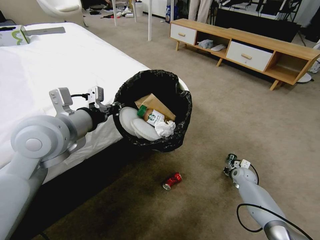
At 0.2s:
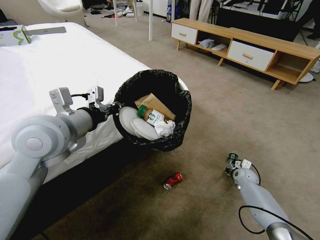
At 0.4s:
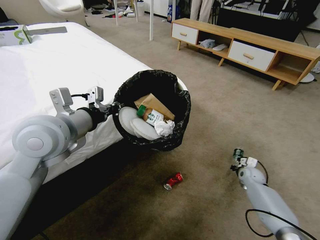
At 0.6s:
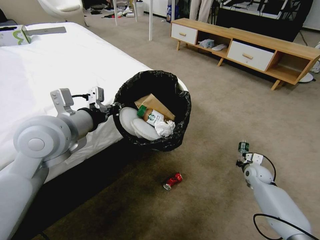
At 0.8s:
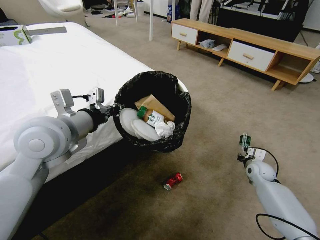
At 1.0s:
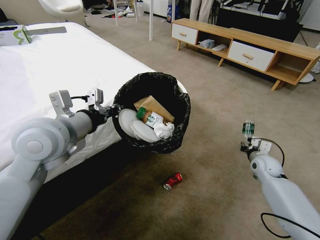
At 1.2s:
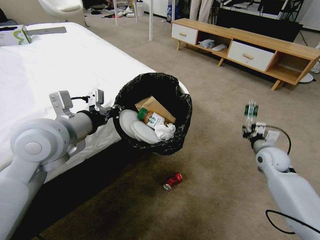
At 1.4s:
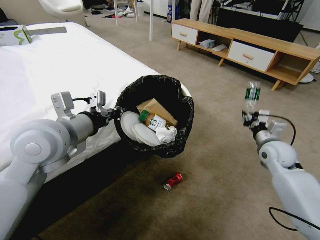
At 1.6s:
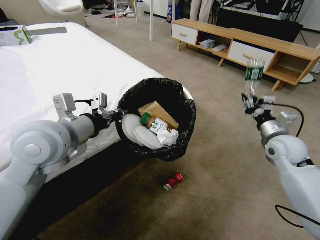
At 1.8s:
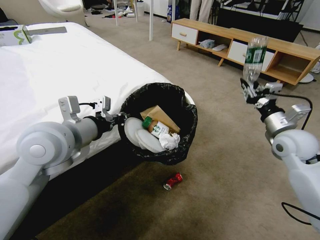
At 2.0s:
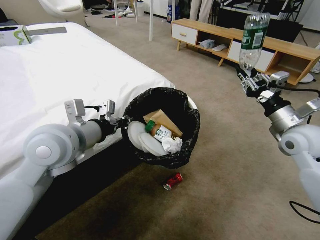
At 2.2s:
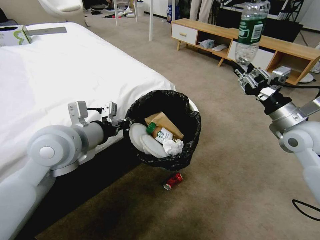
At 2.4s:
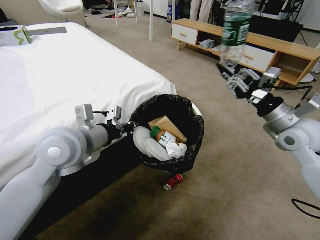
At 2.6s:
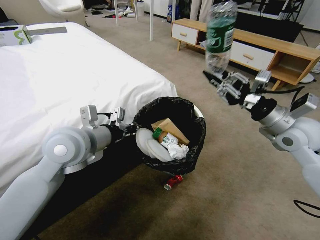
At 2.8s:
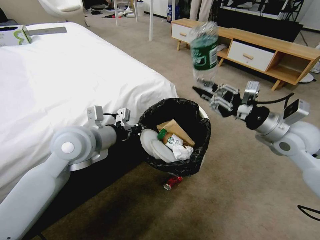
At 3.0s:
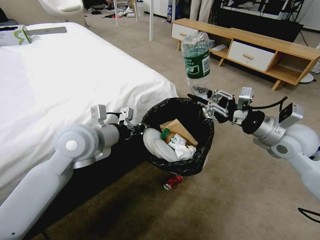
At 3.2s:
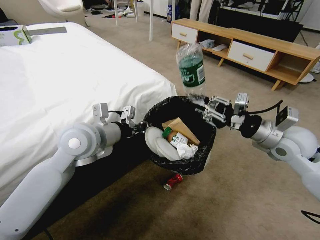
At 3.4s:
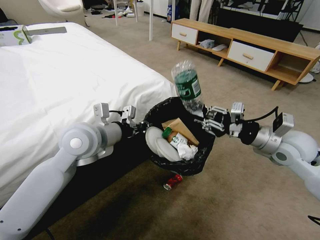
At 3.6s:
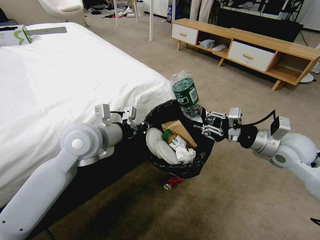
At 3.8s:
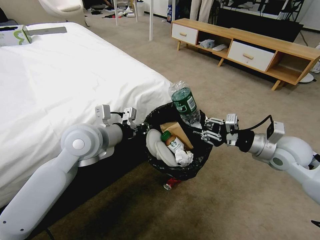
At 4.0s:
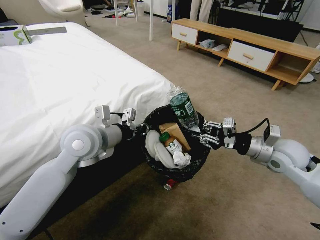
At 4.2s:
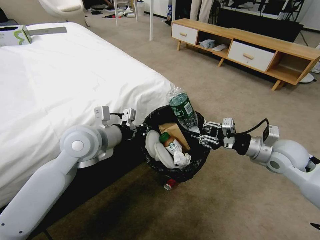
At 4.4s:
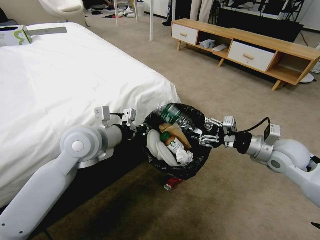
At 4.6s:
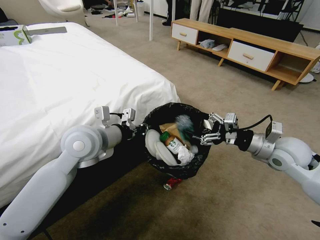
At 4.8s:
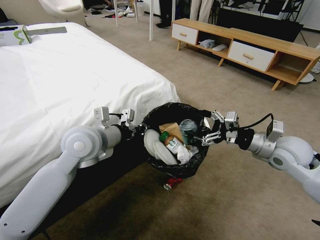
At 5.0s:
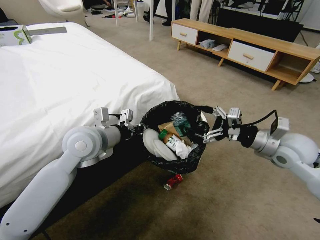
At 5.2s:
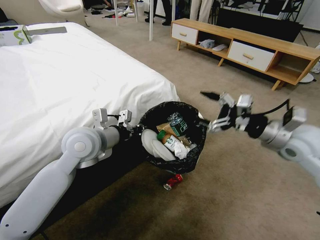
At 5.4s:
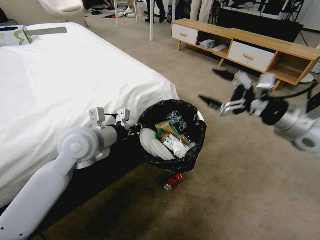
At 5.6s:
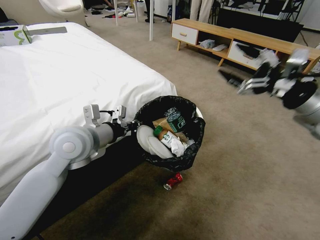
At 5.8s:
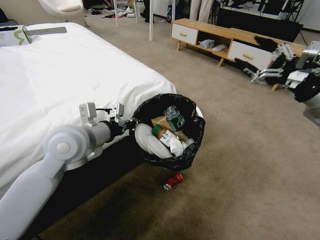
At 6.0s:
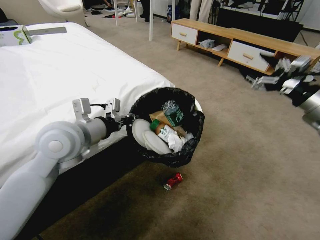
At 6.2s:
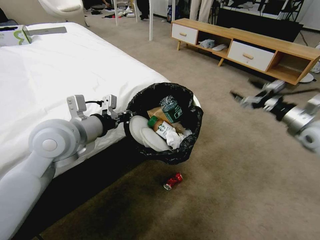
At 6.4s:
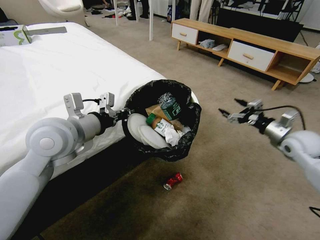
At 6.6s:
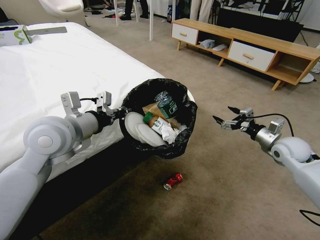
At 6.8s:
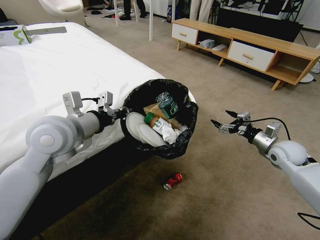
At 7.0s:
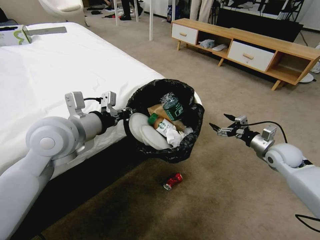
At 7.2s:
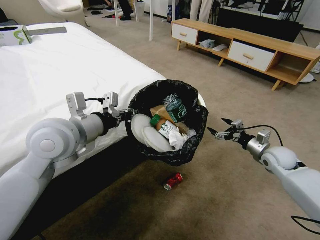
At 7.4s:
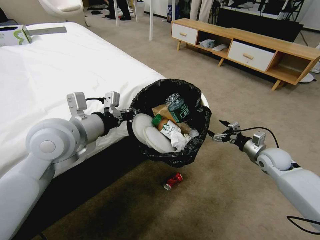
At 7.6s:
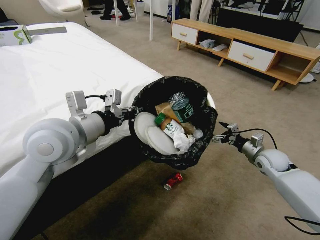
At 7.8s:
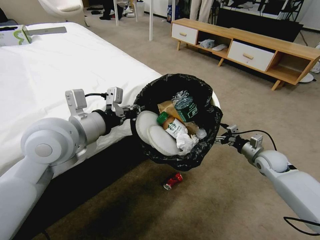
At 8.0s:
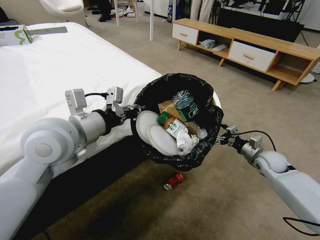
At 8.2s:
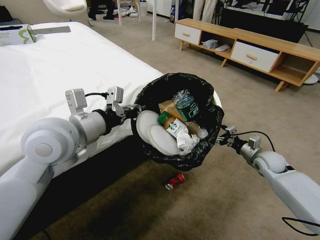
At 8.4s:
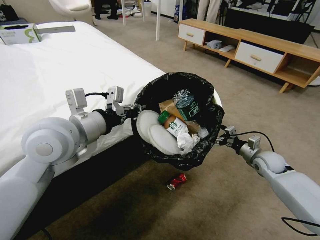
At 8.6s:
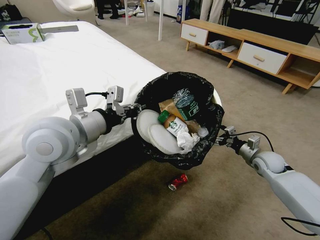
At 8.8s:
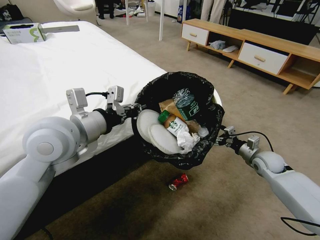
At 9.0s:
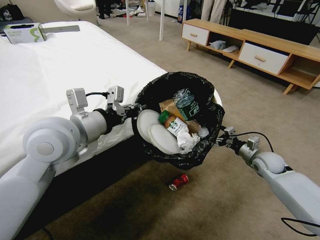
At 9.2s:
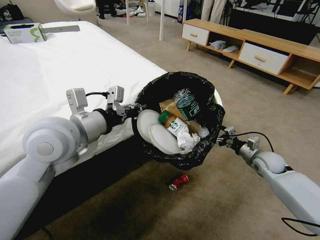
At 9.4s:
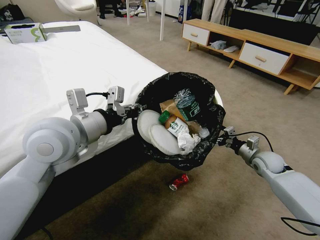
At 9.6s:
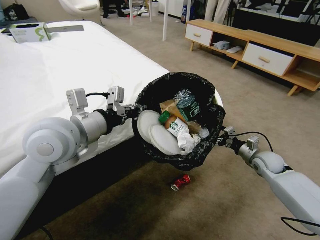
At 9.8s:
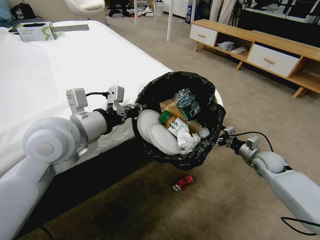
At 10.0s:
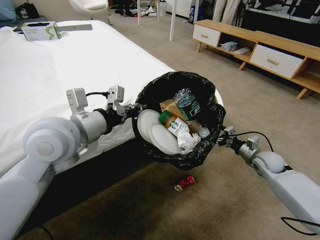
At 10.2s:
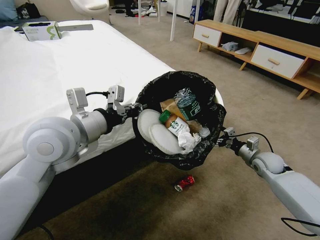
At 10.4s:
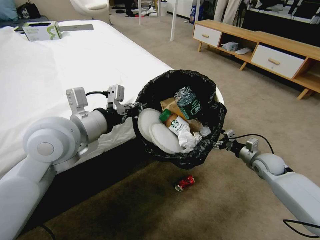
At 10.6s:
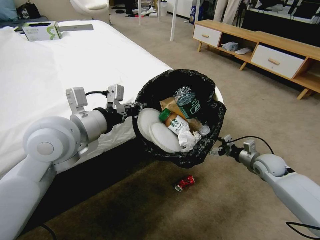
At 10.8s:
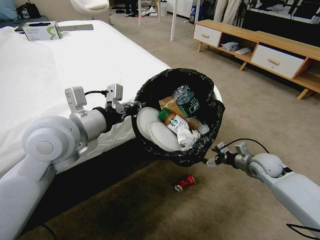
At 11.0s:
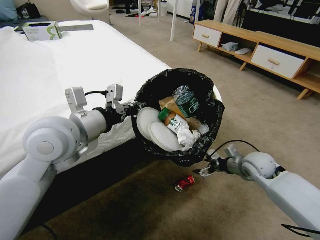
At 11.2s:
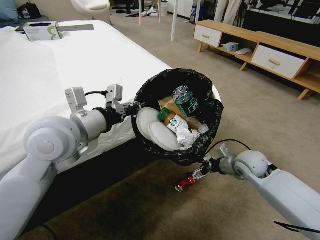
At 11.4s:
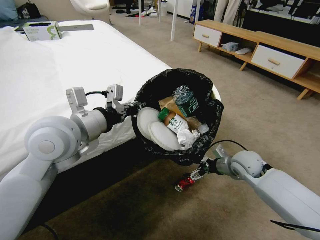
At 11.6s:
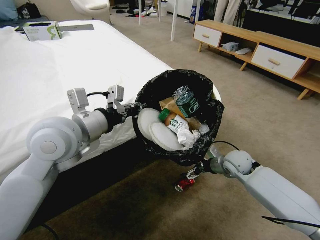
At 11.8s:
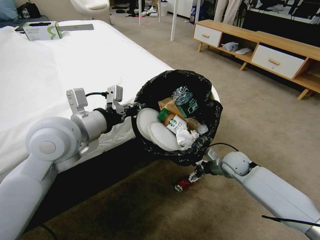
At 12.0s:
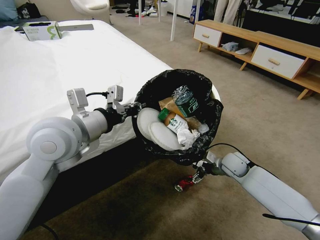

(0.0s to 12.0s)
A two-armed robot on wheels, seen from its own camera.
Task of the whole recording: Pick up the trash bin and place the garbage on the floor into it.
0.0s - 1.6s: The right gripper shifts approximately 30 cm upward.
1.6s - 3.0s: The left gripper moves roughly 5 cm; the right gripper shifts roughly 10 cm upward and to the left.
3.0s - 4.4s: The right gripper heads downward, covering about 5 cm, and opens up.
4.4s - 6.0s: The right gripper moves upward and to the right, some 15 cm, and opens its fingers.
6.0s - 7.6s: The right gripper is displaced downward by approximately 25 cm.
9.0s - 10.4s: Both grippers stay about where they are.
10.4s - 12.0s: The right gripper travels to the left by some 10 cm.

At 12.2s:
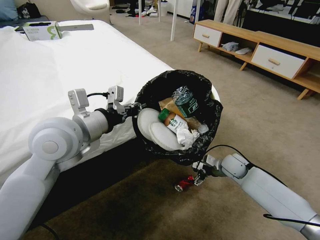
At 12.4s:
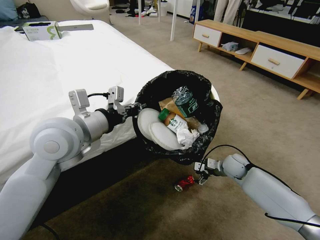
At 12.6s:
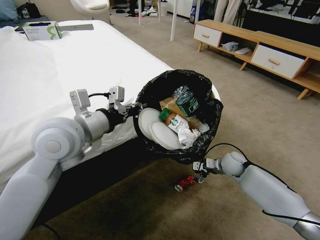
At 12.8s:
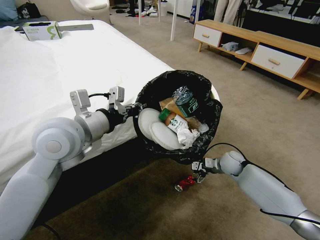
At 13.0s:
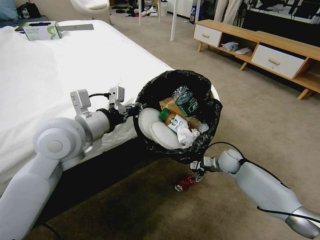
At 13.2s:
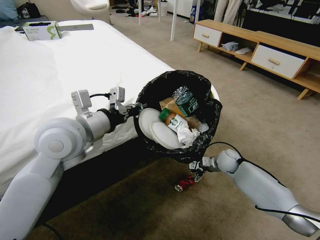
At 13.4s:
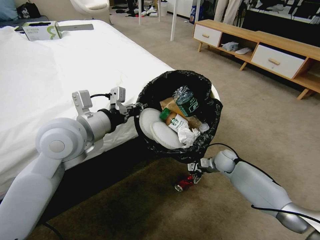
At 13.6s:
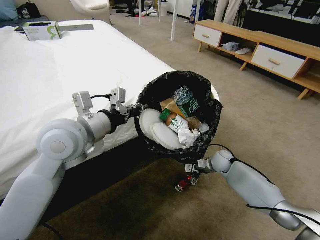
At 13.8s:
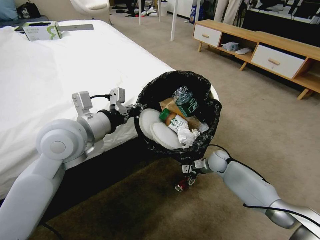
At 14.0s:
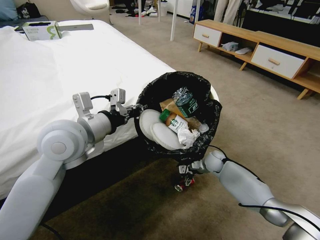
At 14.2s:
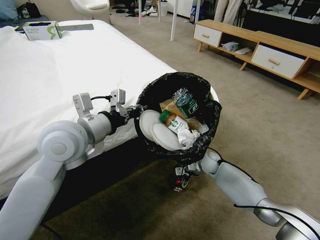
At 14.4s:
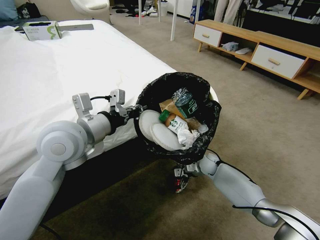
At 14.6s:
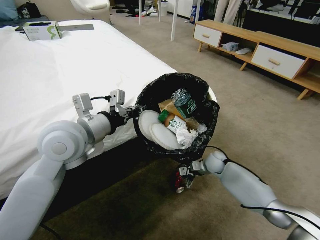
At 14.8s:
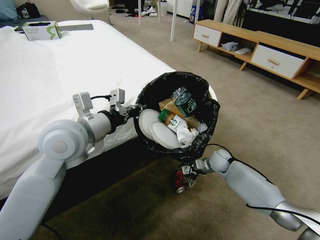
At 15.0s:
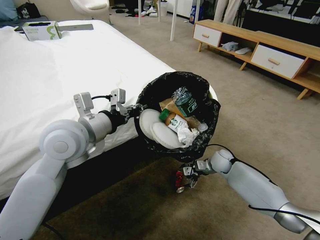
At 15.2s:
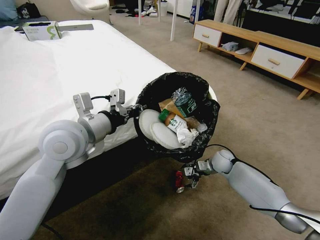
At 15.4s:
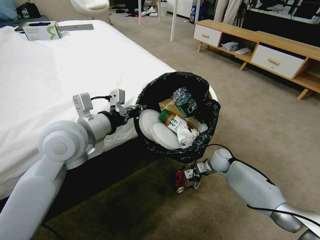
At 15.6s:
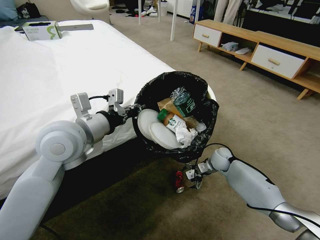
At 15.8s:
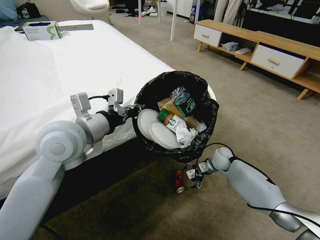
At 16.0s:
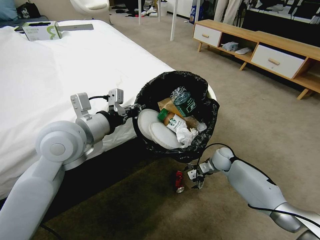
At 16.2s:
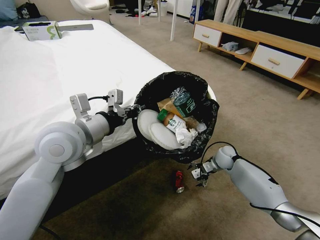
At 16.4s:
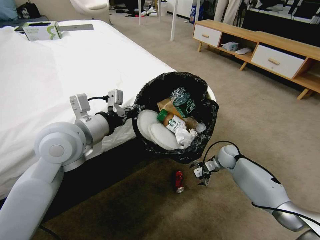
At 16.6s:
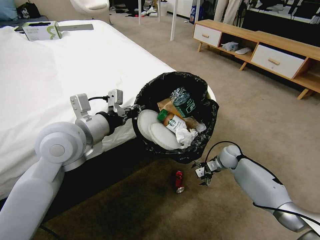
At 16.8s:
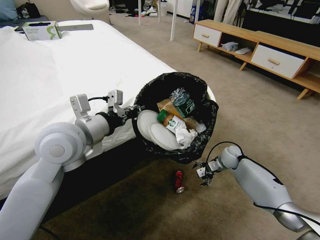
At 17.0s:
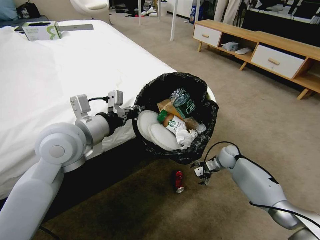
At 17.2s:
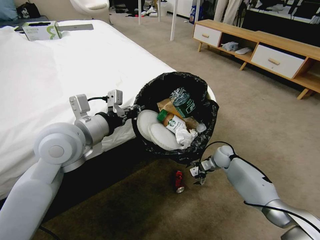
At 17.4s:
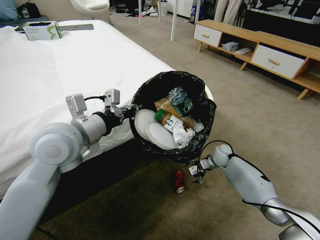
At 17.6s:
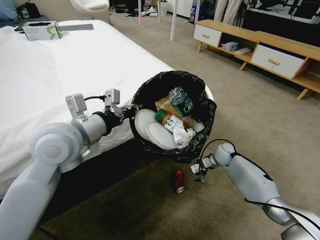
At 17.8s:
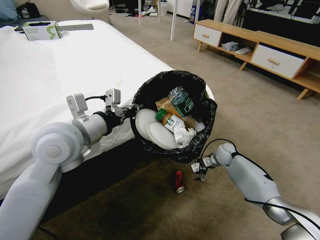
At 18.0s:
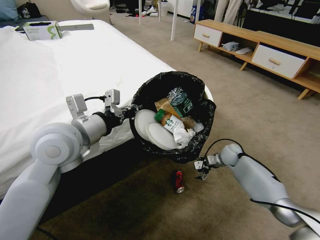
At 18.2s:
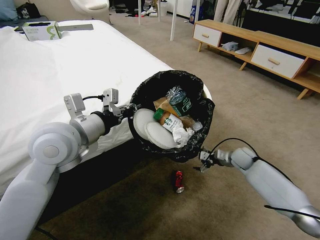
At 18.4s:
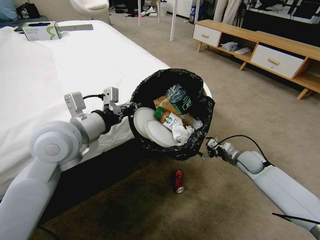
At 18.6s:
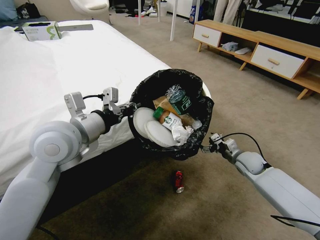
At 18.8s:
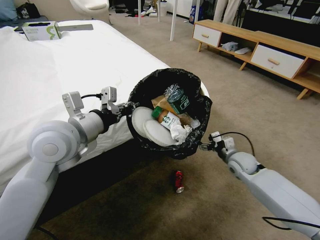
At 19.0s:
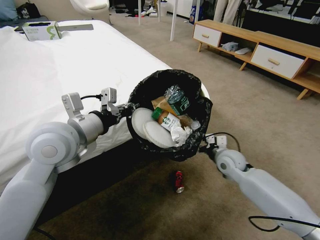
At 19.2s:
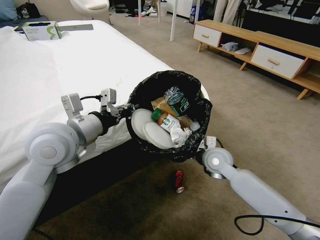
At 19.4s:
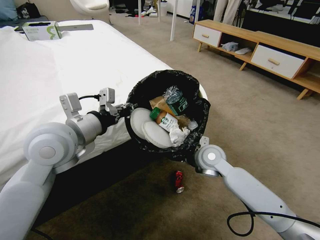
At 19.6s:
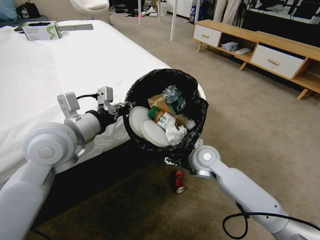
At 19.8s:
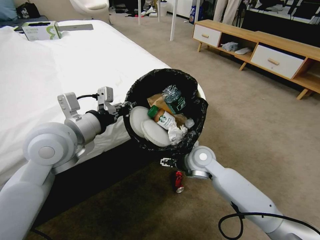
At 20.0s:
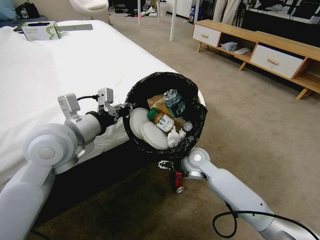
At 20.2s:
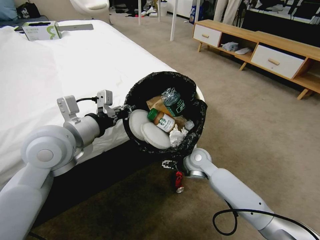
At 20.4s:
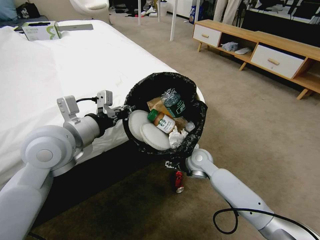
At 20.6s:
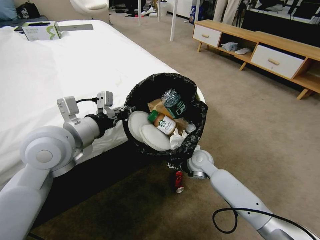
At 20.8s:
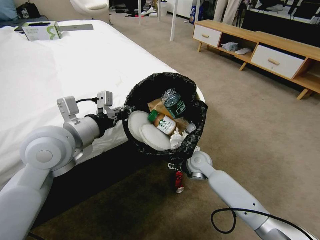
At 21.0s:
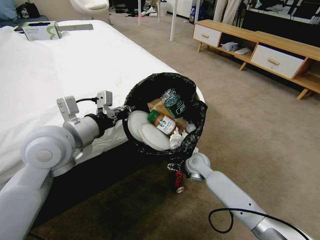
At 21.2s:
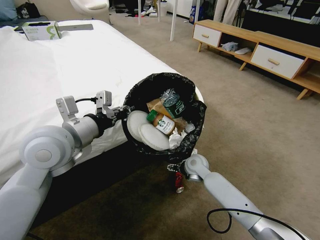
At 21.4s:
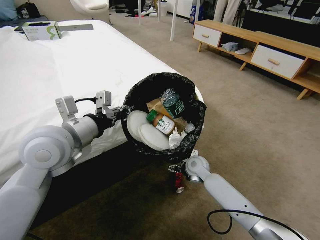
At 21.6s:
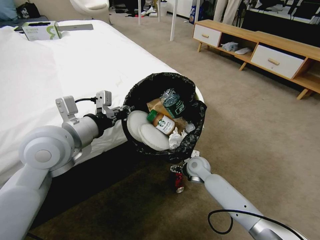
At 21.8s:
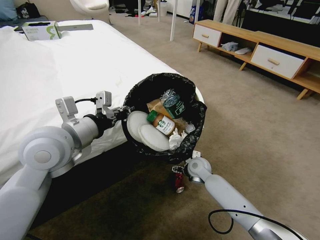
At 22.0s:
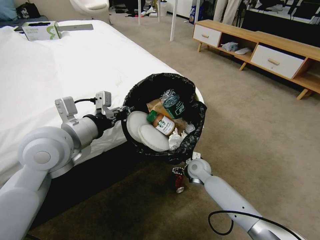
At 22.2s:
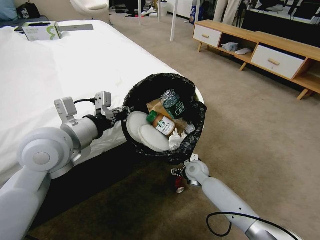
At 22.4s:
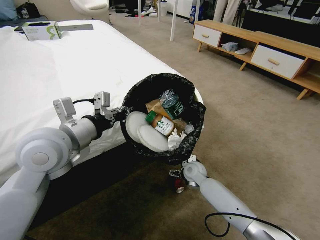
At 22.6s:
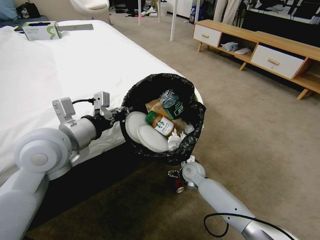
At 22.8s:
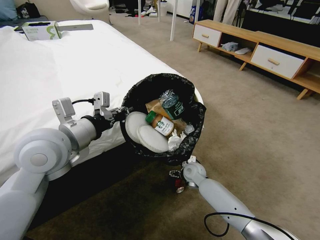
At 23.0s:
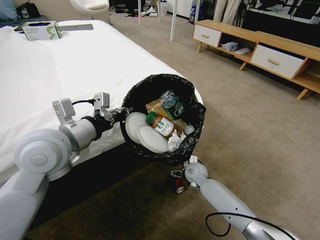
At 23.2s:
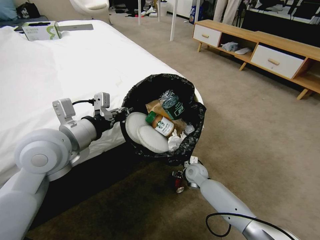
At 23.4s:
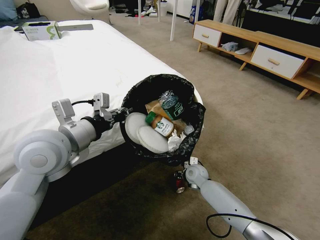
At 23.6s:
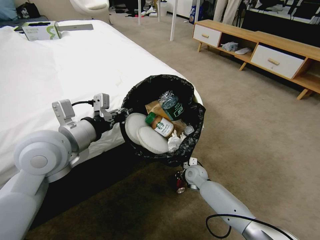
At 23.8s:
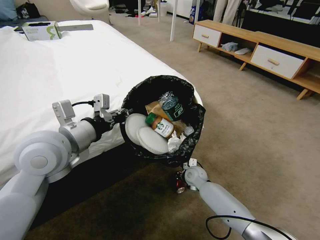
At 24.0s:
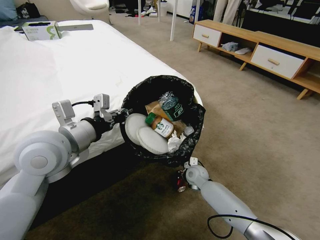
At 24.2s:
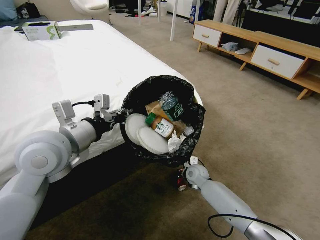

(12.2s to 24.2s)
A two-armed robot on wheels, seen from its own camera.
Task of the whole recording: Pick up the trash bin and place the garbage on the floor into it.
12.2s - 13.8s: The right gripper heads forward, covering approximately 5 cm.
13.8s - 15.2s: The grippers move only a little.
15.2s - 16.6s: The grippers make only small movements.
16.6s - 18.2s: The right gripper ends up roughly 5 cm from where it was.
18.2s - 19.8s: The right gripper shifts some 25 cm to the left and upward.
19.8s - 21.2s: The right gripper shifts roughly 10 cm downward.
21.2s - 22.6s: The right gripper is displaced downward by roughly 5 cm.
22.6s - 24.2s: The right gripper closes up.
